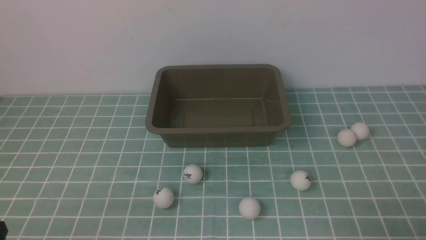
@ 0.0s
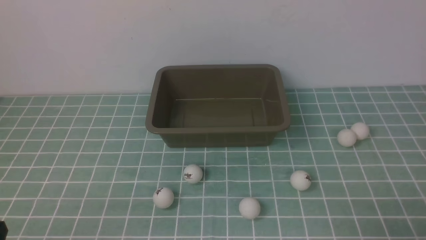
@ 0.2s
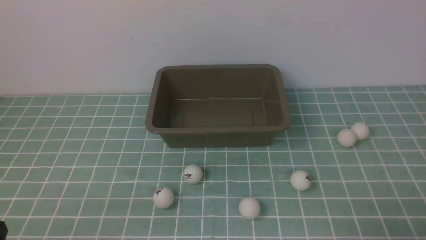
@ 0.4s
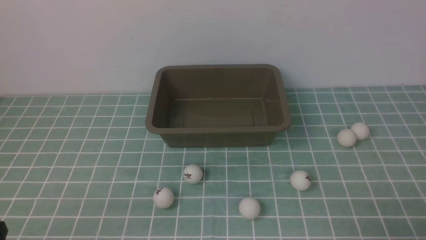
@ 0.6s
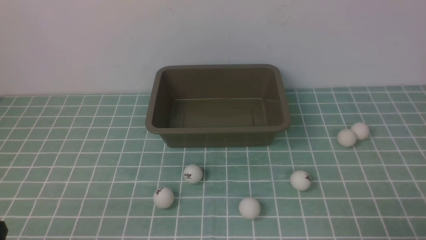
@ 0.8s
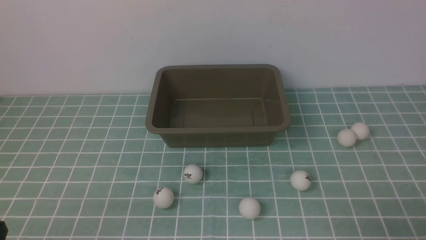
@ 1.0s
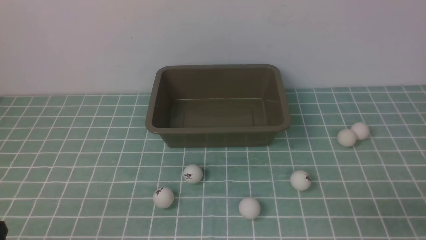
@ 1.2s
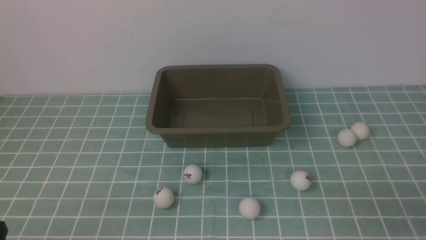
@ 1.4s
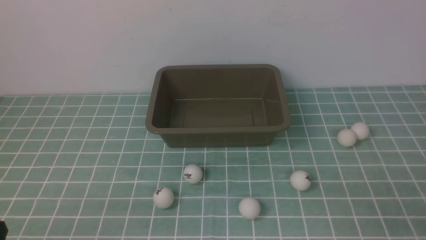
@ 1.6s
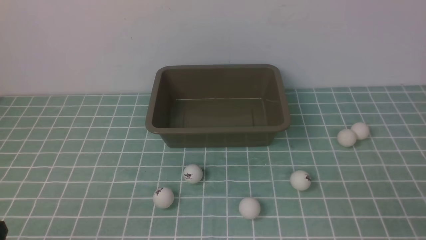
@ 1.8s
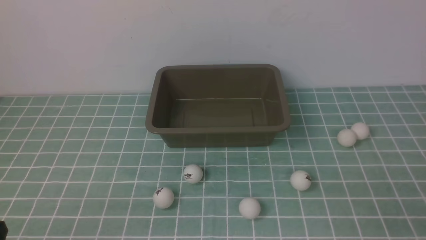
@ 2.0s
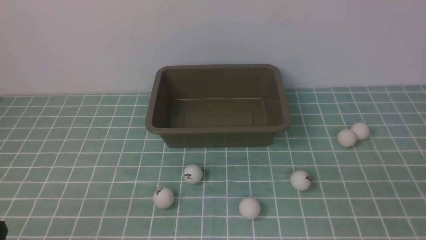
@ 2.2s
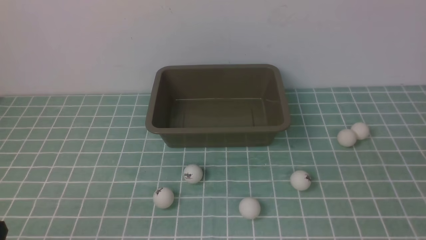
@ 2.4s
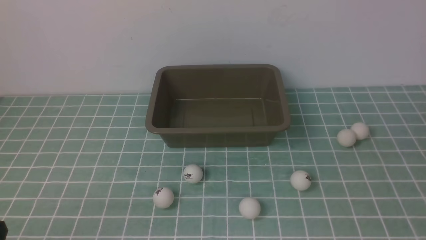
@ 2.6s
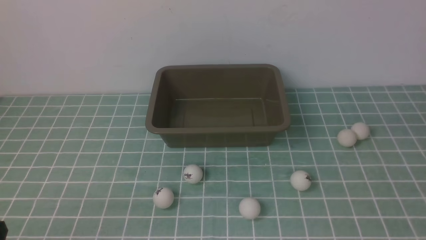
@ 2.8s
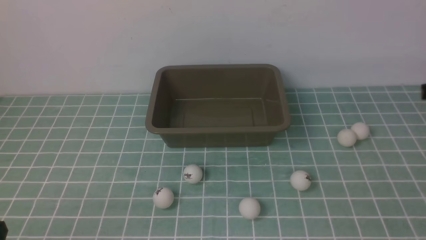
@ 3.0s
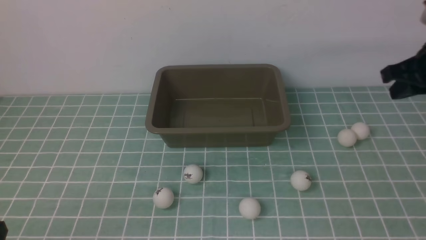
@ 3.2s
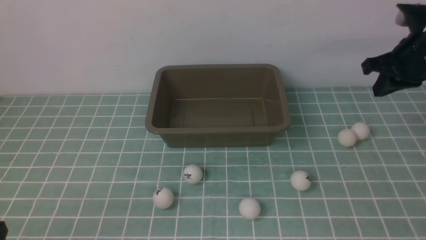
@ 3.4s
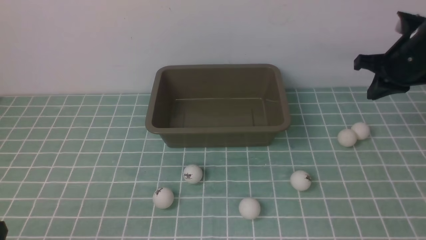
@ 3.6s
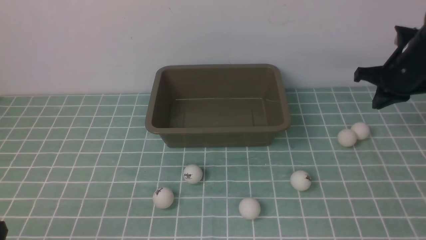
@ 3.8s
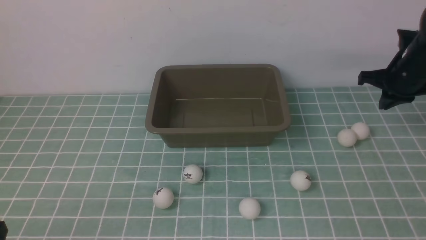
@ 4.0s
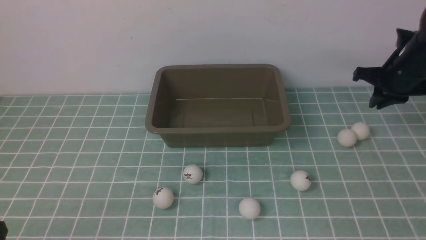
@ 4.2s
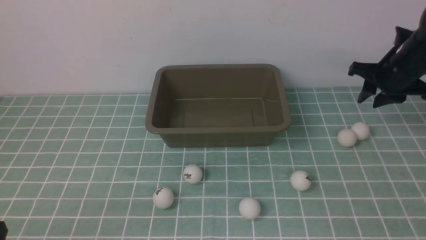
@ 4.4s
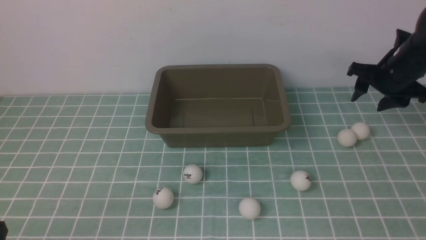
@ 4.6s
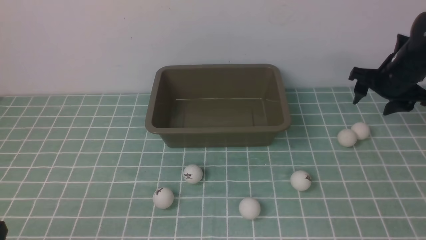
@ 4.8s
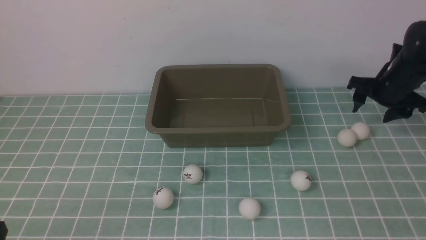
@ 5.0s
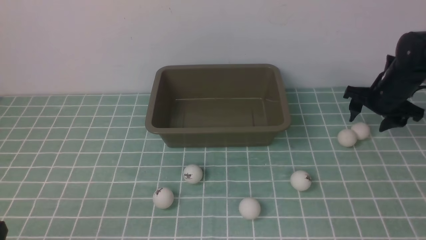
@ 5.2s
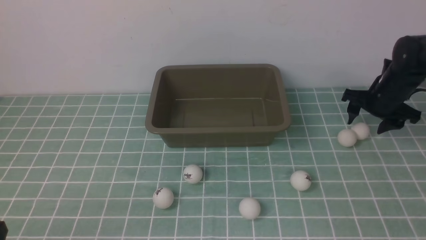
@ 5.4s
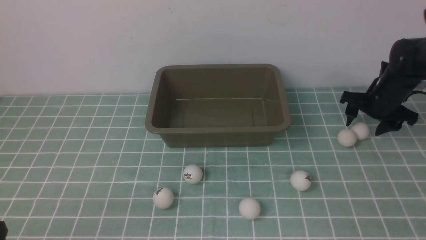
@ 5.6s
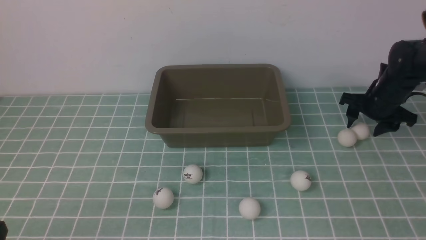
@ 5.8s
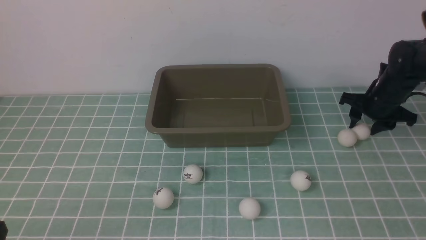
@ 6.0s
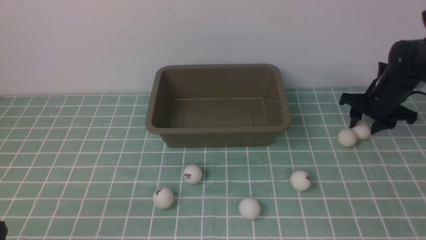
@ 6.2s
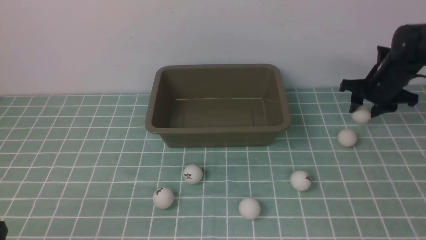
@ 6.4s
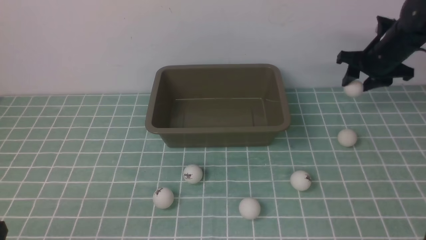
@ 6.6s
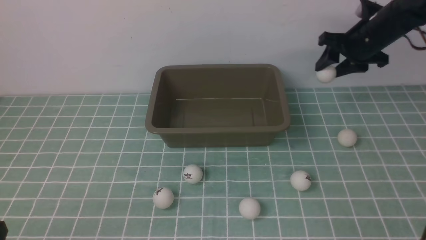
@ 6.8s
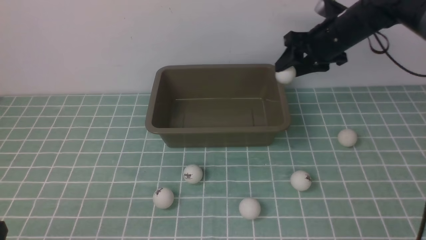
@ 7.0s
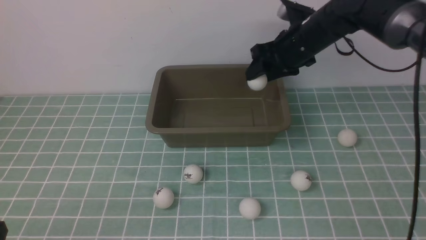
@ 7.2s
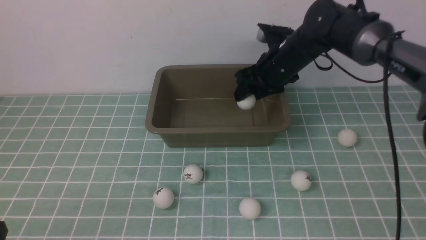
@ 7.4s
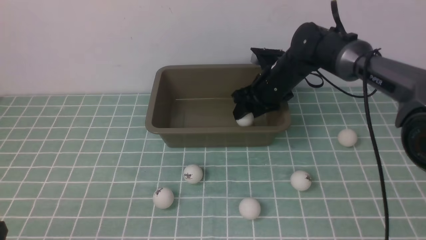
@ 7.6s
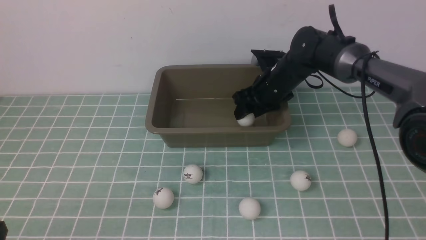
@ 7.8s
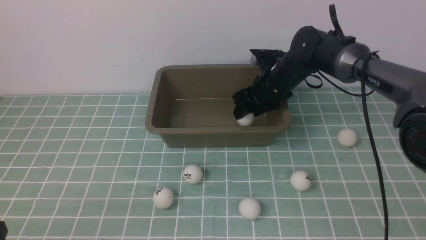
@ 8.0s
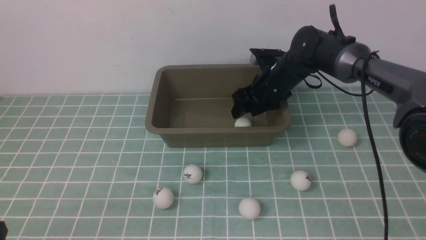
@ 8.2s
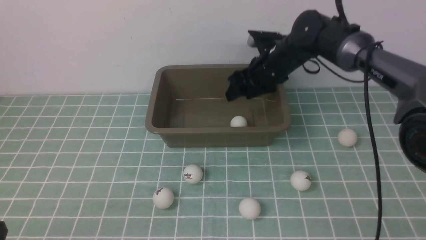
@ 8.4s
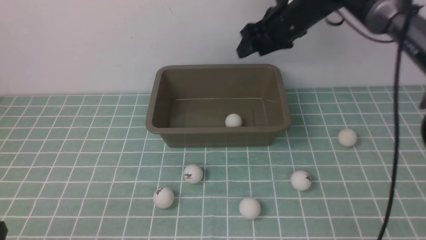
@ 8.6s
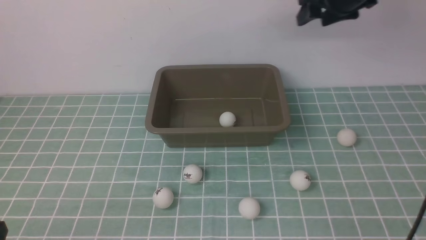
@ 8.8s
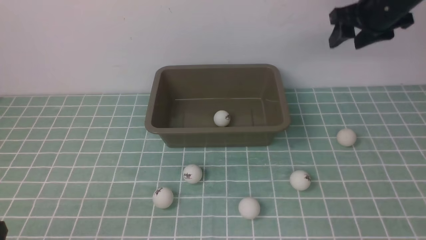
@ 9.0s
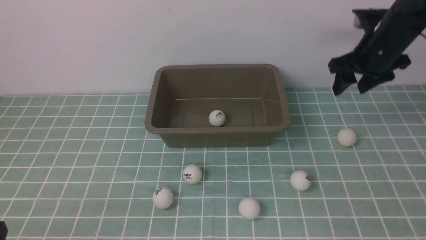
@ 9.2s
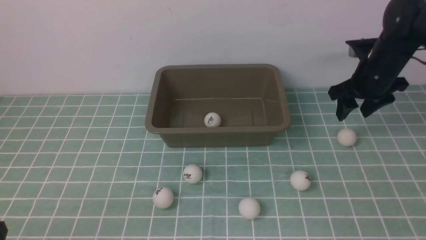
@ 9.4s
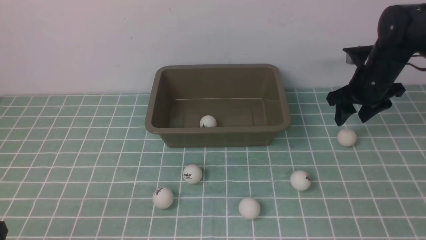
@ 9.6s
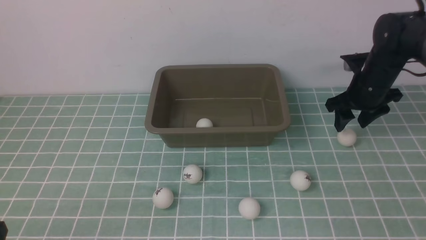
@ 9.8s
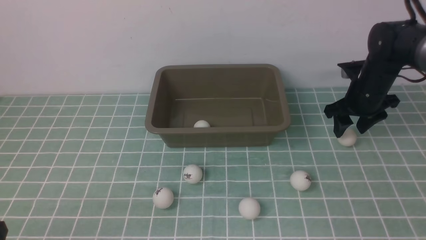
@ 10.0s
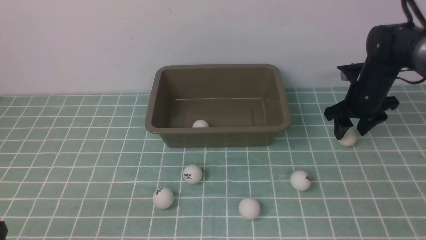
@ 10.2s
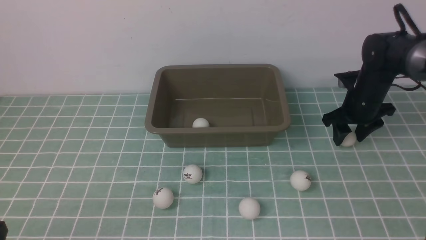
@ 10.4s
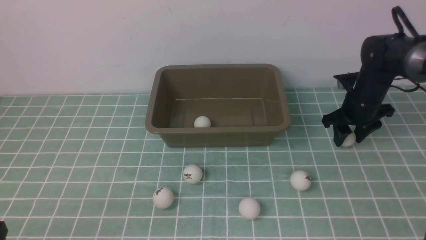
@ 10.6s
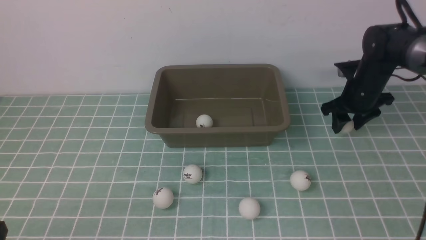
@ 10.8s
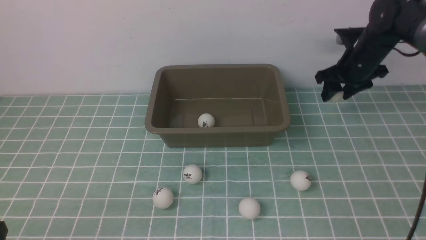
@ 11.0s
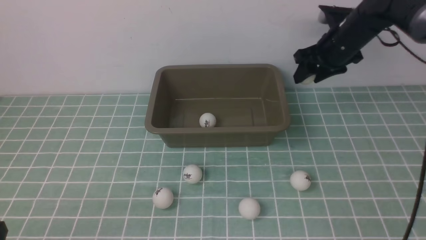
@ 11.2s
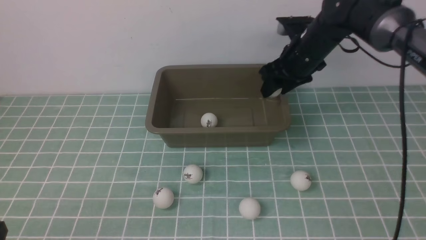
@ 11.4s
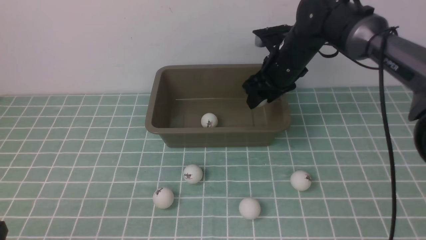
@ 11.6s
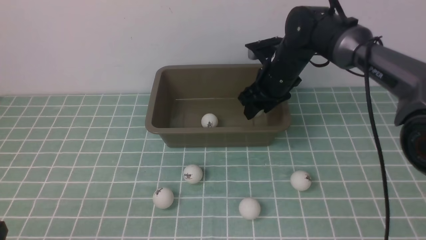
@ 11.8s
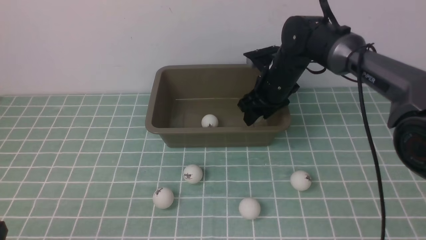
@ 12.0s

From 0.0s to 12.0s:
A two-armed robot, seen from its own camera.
Step, from 0.0s to 6.4s: use the right arm to clamp the table tennis ball closest to it.
Step, from 6.6s to 8.4s: use the right arm to put the table tennis ball into the box.
Step, from 8.6s to 10.8s: use the right arm to clamp the table tennis ball closest to it.
From 3.0s to 4.4s: The right gripper goes some 20 cm forward and downward, and opens.
From 4.4s to 6.0s: The right gripper goes roughly 10 cm downward.
From 6.0s to 7.6s: The right gripper shifts about 20 cm to the left.
From 7.6s to 9.0s: The right gripper shifts approximately 15 cm to the right and upward.
From 9.0s to 10.4s: The right gripper shifts about 10 cm downward.
From 10.4s to 12.0s: The right gripper is displaced to the left by roughly 15 cm.

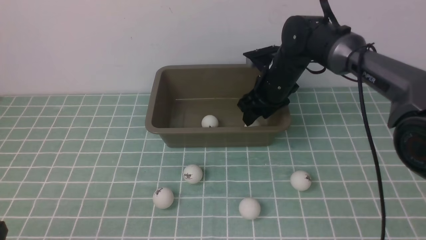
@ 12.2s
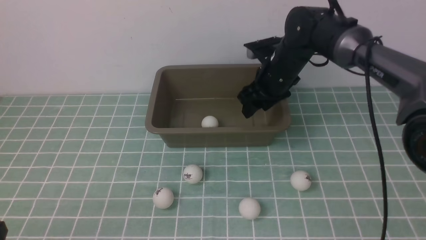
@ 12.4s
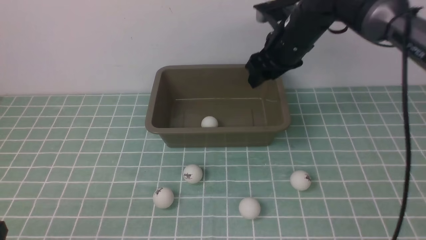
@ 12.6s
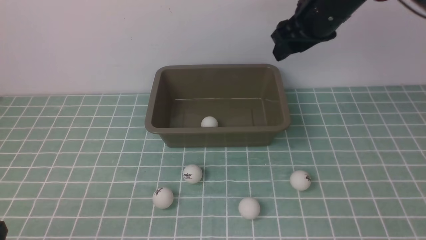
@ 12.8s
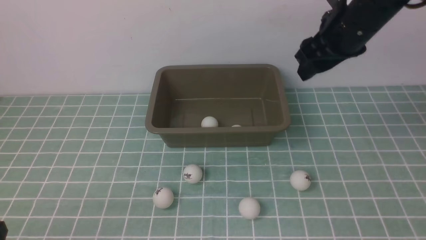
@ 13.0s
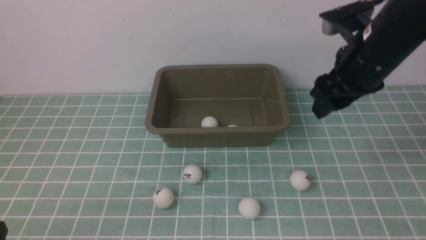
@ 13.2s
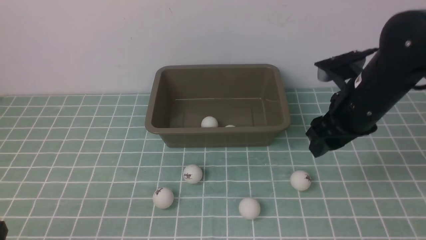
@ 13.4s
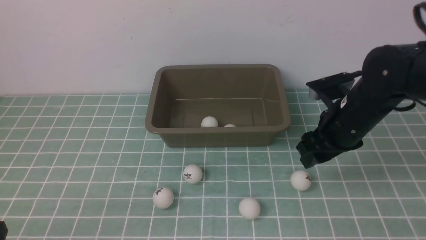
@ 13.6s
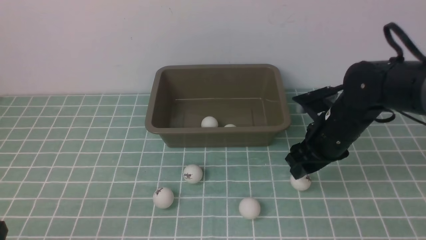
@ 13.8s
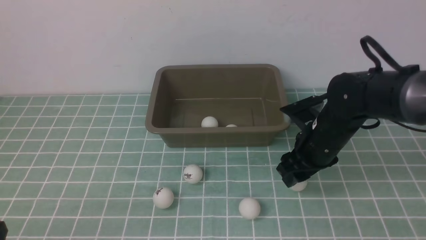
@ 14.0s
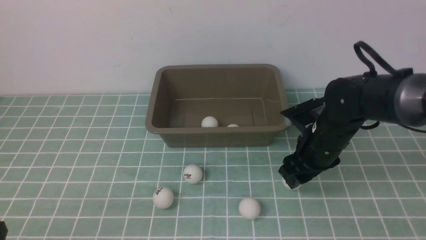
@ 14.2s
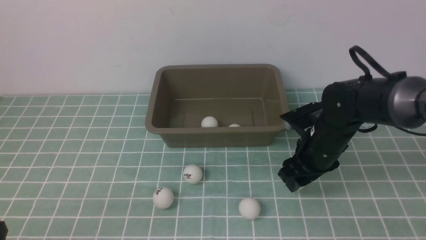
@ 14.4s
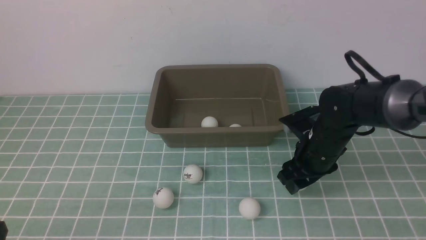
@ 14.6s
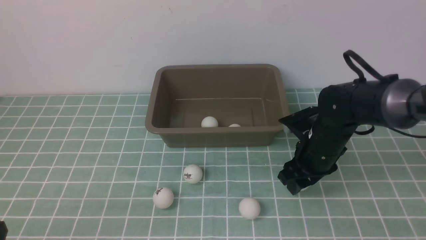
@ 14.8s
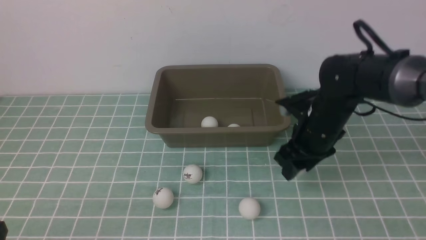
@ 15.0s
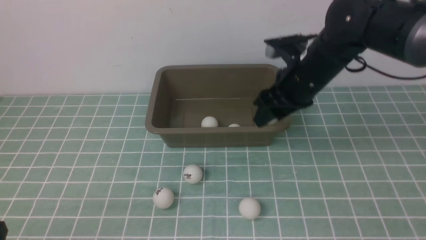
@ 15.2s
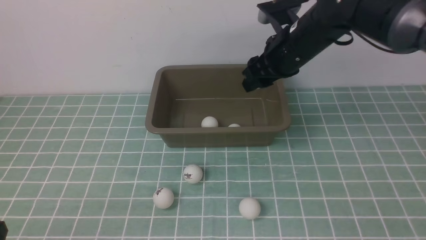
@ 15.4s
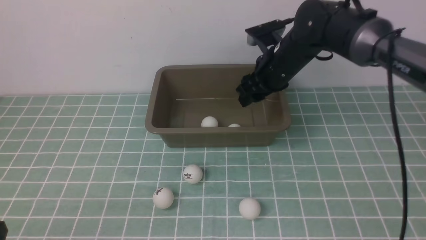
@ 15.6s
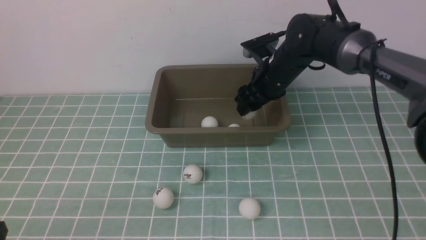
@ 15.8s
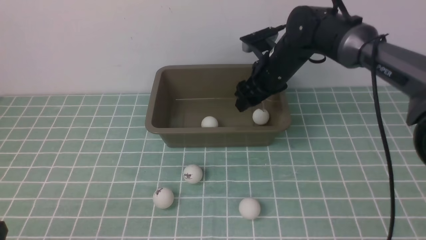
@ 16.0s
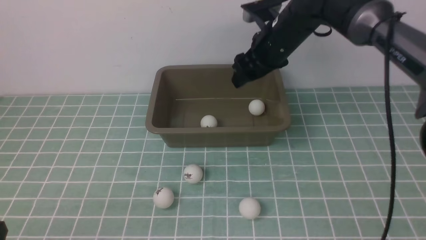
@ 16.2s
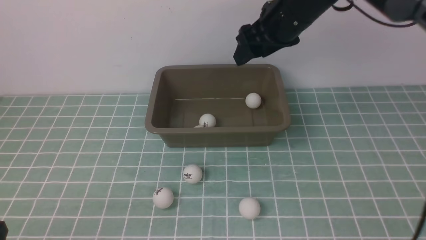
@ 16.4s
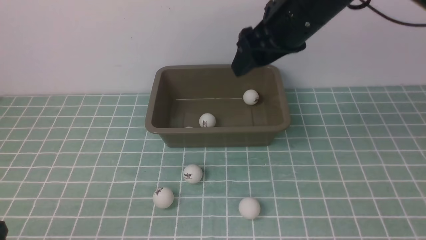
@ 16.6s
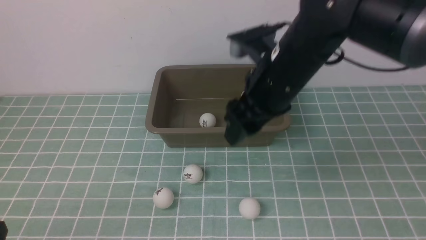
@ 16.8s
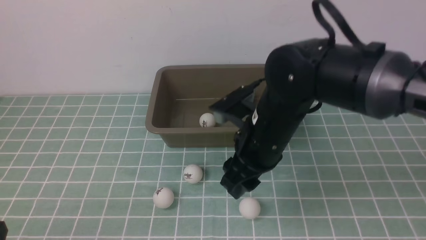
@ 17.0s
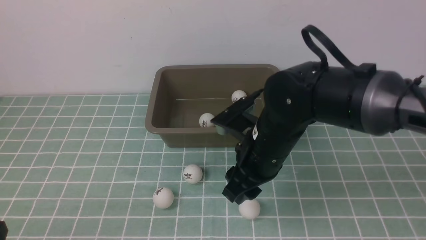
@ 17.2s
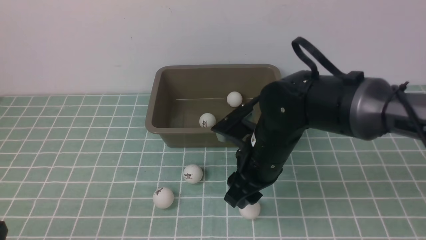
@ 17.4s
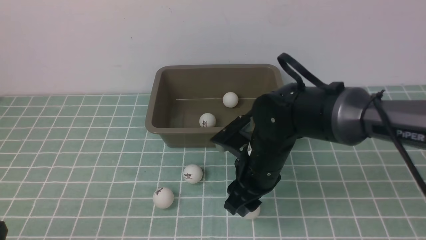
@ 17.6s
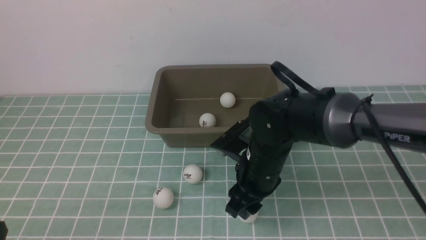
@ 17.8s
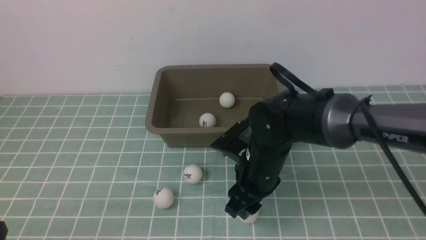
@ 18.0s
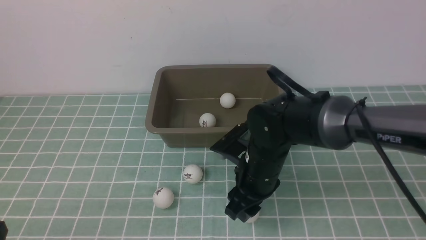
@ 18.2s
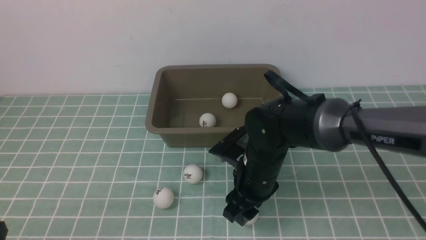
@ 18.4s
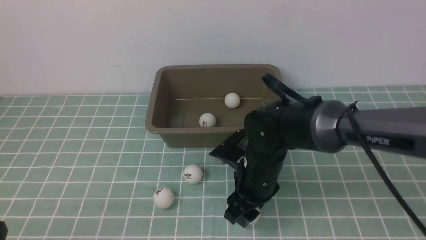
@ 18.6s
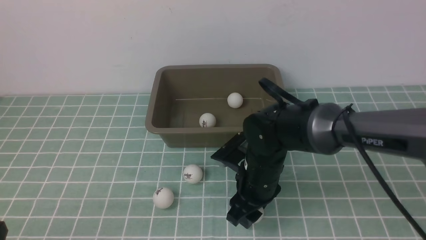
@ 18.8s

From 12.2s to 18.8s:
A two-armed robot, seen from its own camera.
Step, from 12.6s to 15.0s: use the right arm to clamp the table tennis ball closest to it.
Step, from 15.2s to 16.0s: use the right arm to put the table tennis ball into the box.
From 12.2s to 13.8s: The right gripper travels backward and to the right by about 15 cm, and moves about 15 cm upward and comes back.
From 13.8s to 15.4s: The right gripper shifts about 10 cm forward, upward and to the left.
From 15.4s to 17.2s: The right gripper is displaced backward, downward and to the left by roughly 15 cm.
From 17.2s to 18.8s: The right gripper goes roughly 5 cm downward.
